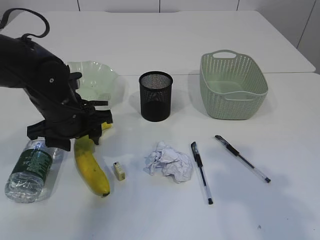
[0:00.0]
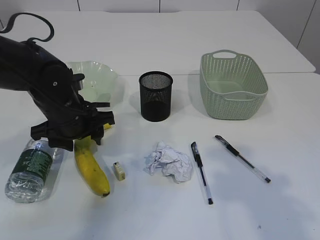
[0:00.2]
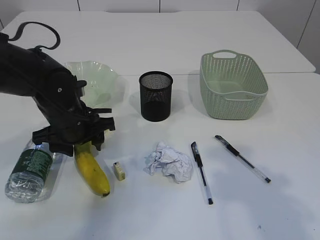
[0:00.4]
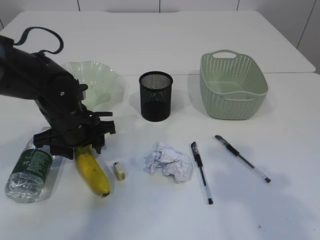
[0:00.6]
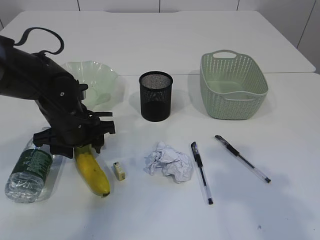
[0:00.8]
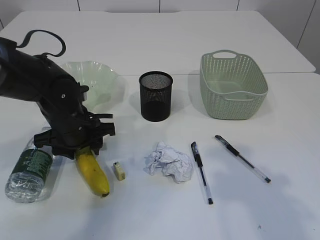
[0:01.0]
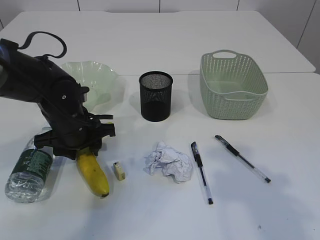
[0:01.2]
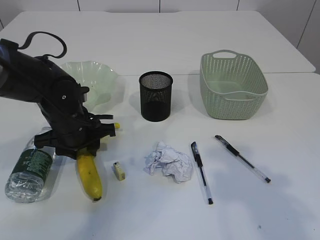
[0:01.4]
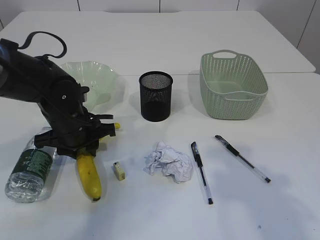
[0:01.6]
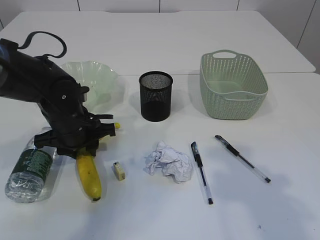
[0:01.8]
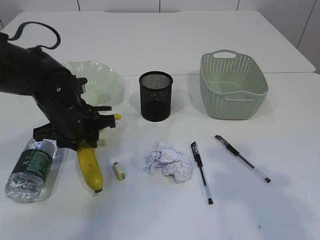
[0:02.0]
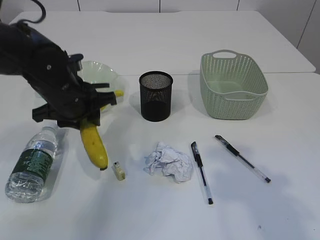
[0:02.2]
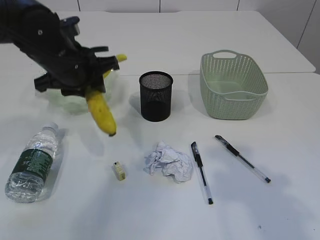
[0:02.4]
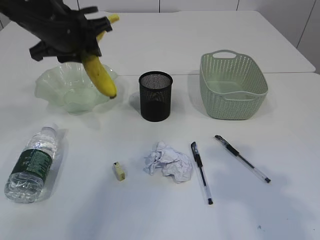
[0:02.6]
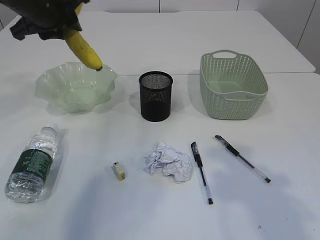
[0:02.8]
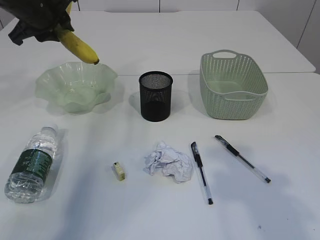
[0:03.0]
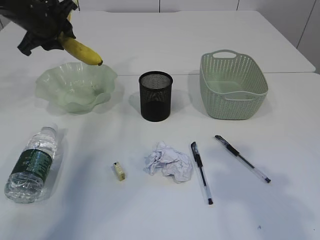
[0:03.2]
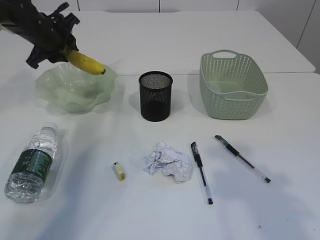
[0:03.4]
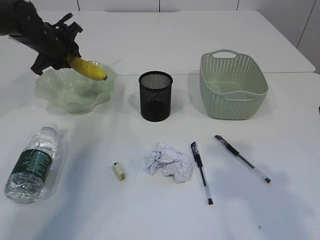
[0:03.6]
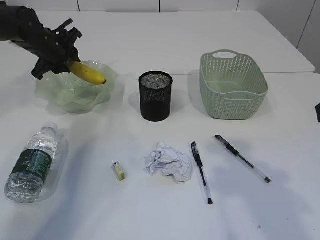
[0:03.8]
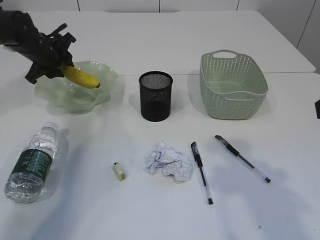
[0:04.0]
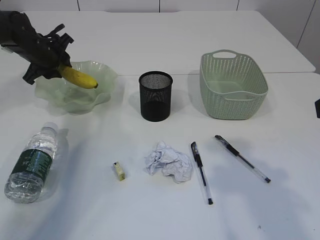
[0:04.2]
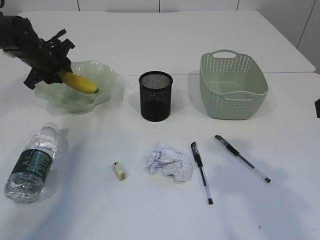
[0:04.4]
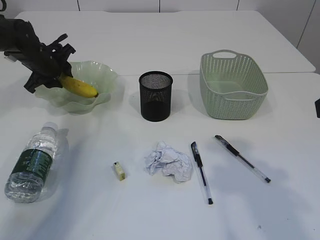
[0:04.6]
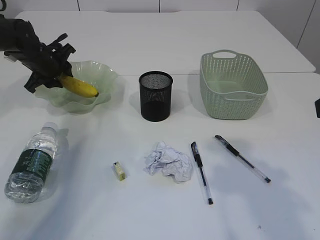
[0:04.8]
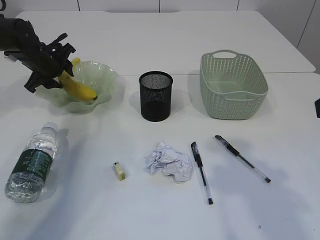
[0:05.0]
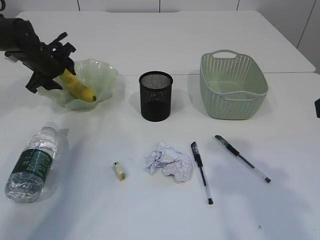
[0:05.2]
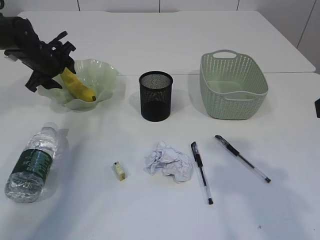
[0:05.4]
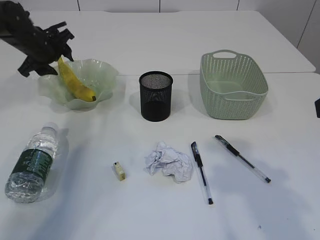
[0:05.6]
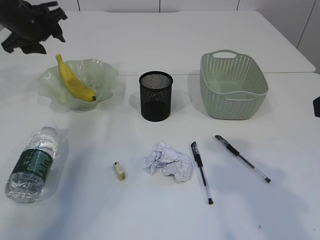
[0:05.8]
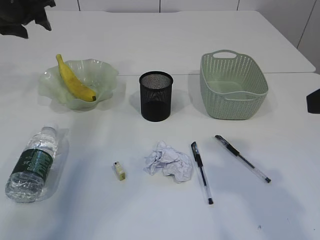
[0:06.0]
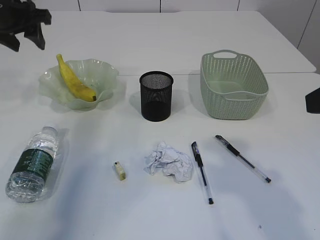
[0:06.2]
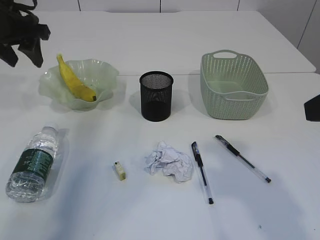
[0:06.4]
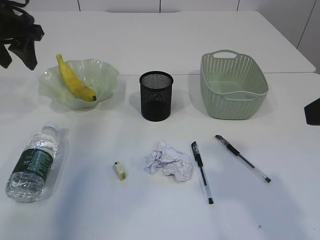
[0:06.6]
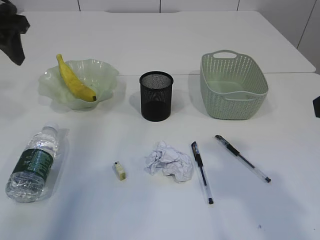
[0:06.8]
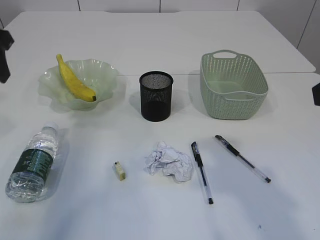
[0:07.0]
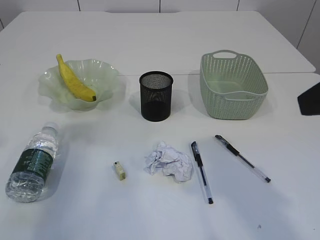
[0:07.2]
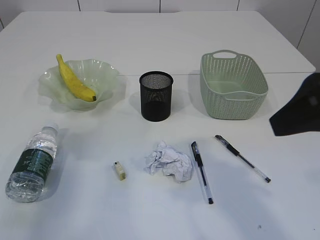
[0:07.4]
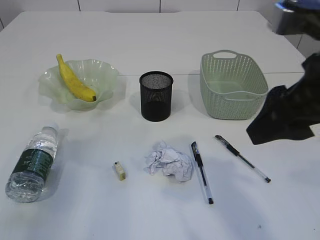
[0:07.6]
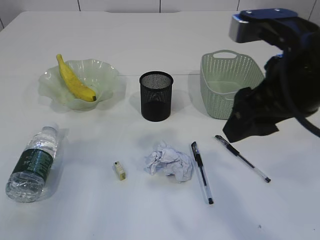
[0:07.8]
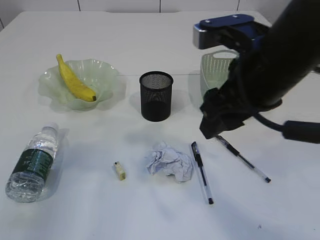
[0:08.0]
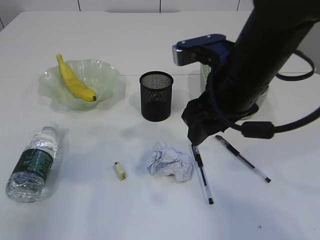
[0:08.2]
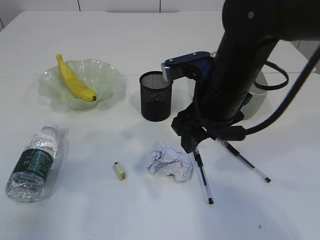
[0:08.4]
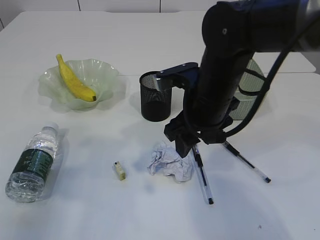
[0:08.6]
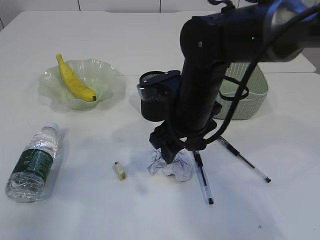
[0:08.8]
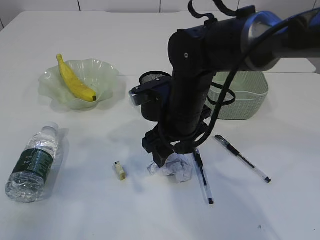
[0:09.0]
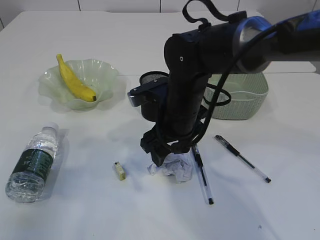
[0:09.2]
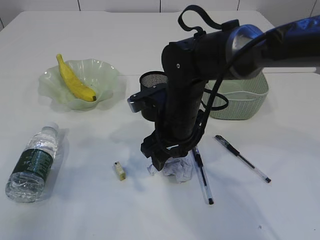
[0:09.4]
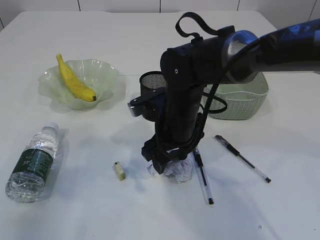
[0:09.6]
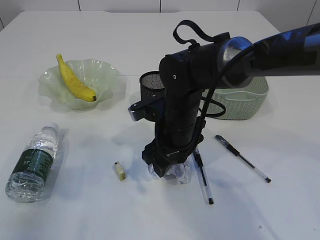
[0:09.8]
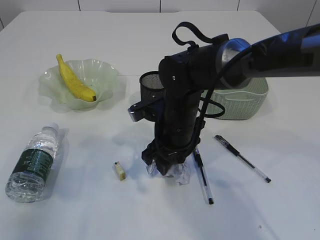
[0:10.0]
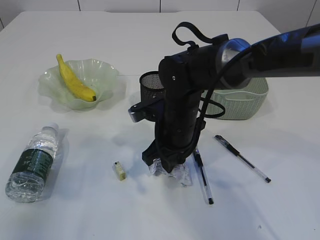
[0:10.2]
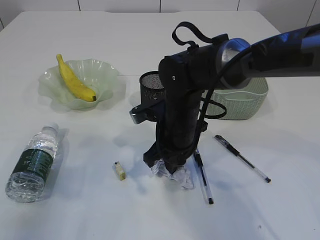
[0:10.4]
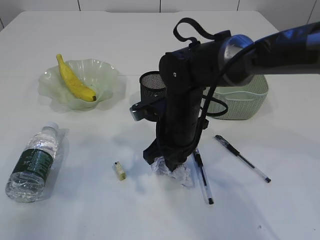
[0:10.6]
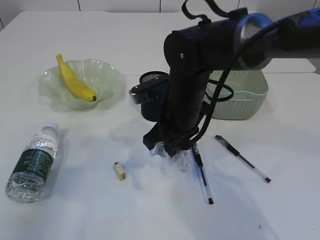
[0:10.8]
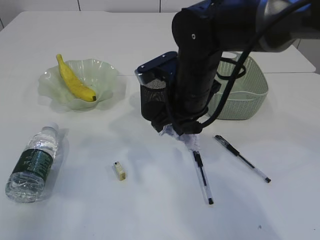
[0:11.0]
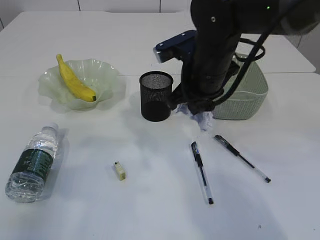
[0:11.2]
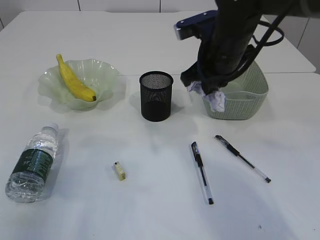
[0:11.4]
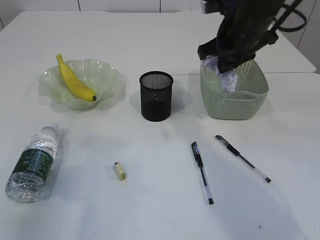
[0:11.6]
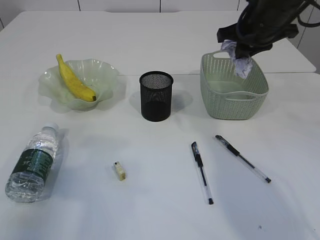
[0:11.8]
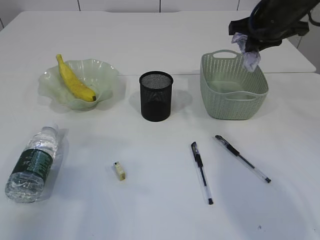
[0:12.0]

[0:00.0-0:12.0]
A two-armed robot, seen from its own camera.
Step, 0:02.4 to 0:05.6: Place the banana in the plate.
Step, 0:05.8 to 0:10.8: Pick up the waste paper.
0:00.0 to 0:01.6: The left gripper closes up.
0:01.6 to 0:03.0: The left gripper travels upward, forward and to the left by roughly 20 cm.
0:03.0 to 0:04.4: The left gripper is displaced downward and forward by some 15 cm.
0:04.4 to 0:06.0: The left gripper travels upward by roughly 15 cm, and opens up.
0:06.0 to 0:07.6: The left gripper is displaced backward by approximately 20 cm. The right gripper heads to the left, covering roughly 5 cm.
0:07.6 to 0:09.0: The right gripper goes approximately 25 cm downward, forward and to the left, while the left gripper shifts approximately 10 cm backward.
0:09.0 to 0:10.4: The right gripper closes up.
0:10.4 to 0:12.0: The right gripper is displaced to the right, upward and forward by approximately 25 cm.

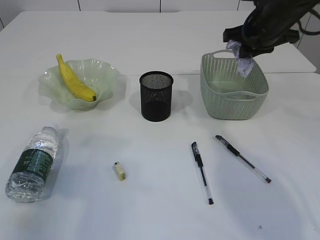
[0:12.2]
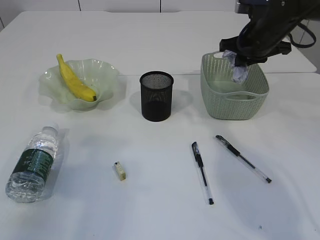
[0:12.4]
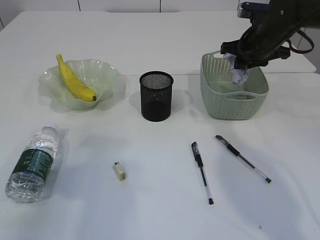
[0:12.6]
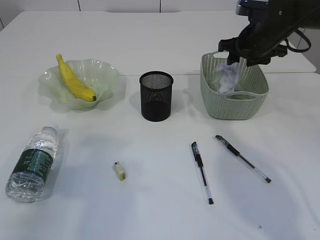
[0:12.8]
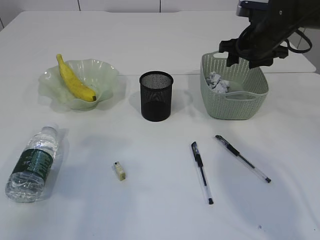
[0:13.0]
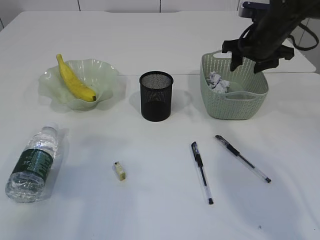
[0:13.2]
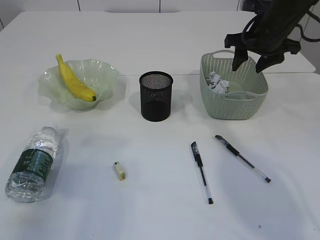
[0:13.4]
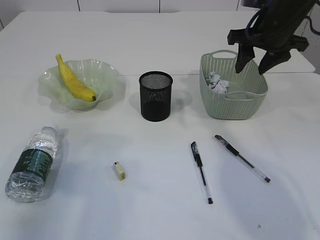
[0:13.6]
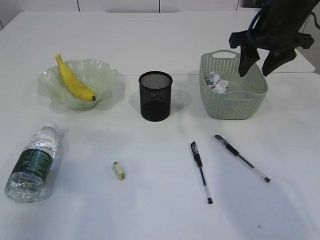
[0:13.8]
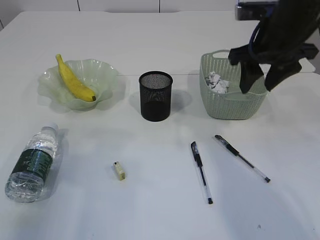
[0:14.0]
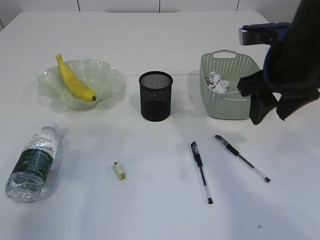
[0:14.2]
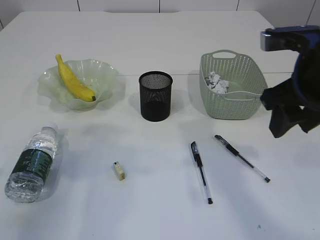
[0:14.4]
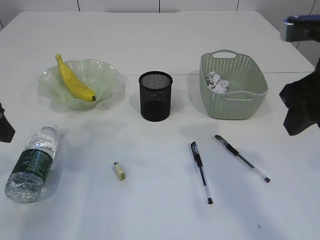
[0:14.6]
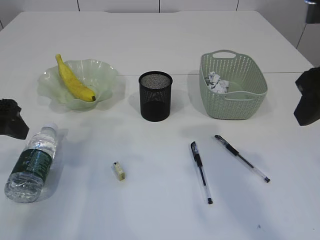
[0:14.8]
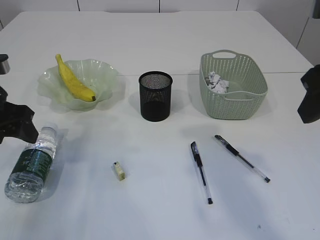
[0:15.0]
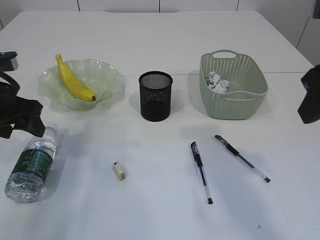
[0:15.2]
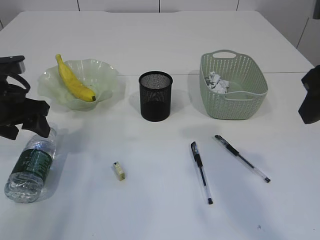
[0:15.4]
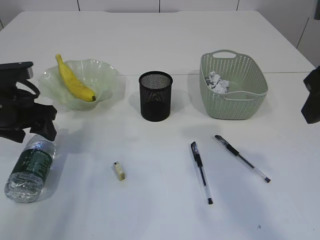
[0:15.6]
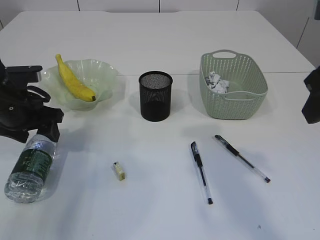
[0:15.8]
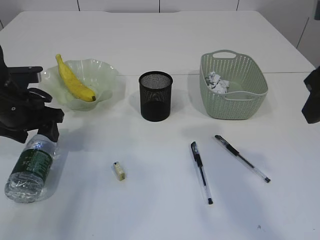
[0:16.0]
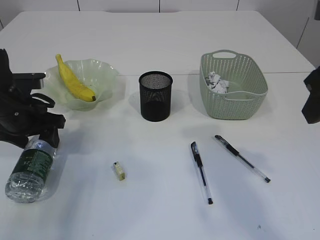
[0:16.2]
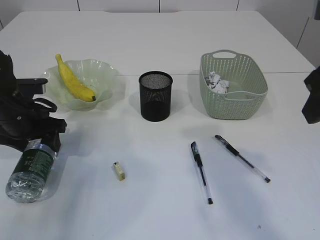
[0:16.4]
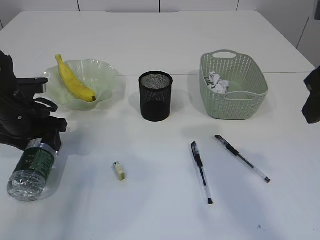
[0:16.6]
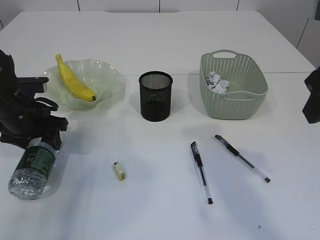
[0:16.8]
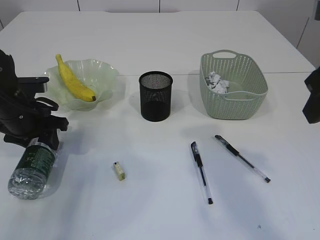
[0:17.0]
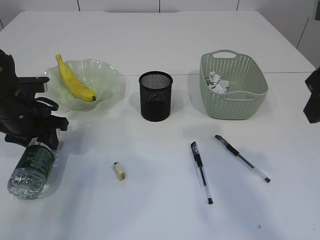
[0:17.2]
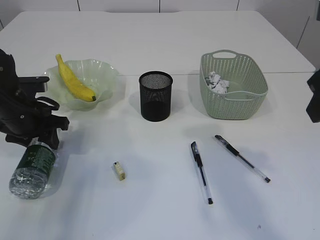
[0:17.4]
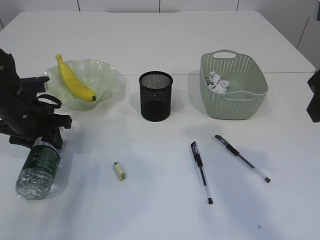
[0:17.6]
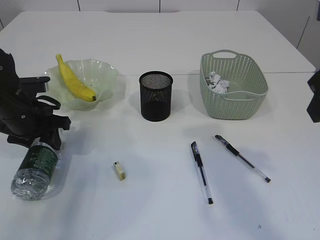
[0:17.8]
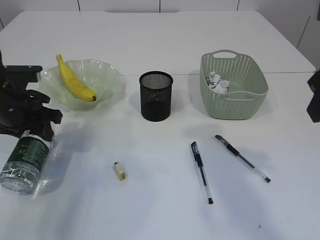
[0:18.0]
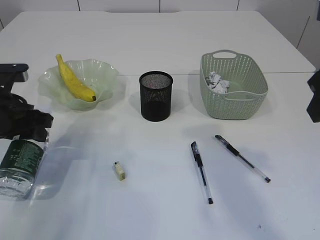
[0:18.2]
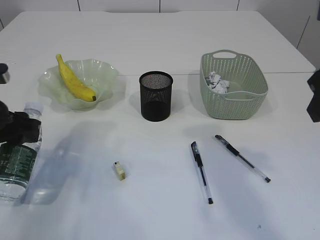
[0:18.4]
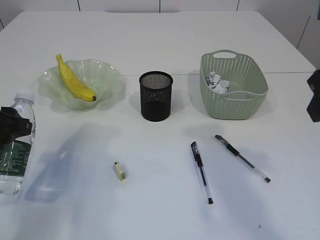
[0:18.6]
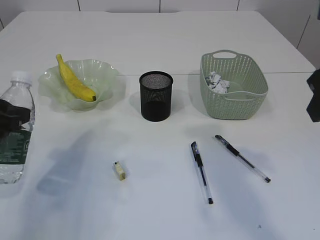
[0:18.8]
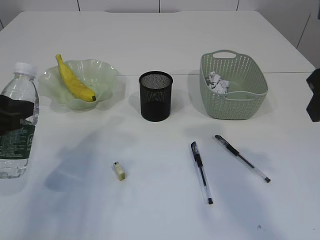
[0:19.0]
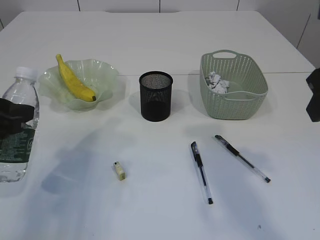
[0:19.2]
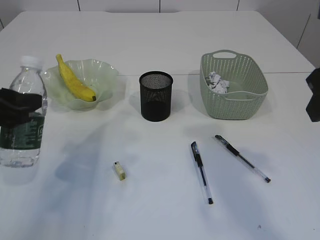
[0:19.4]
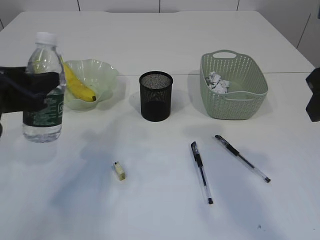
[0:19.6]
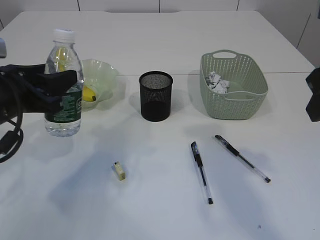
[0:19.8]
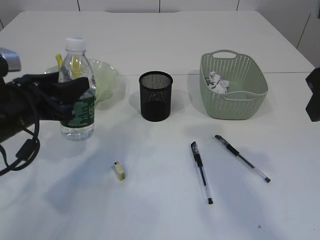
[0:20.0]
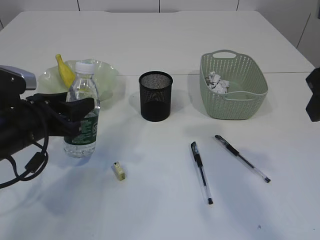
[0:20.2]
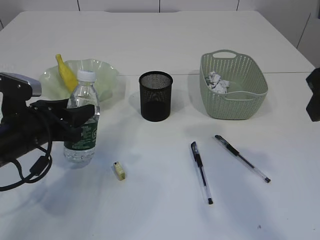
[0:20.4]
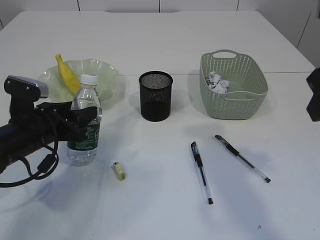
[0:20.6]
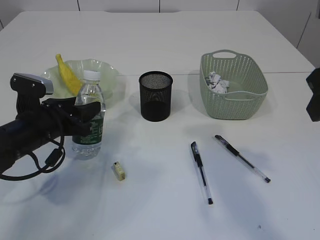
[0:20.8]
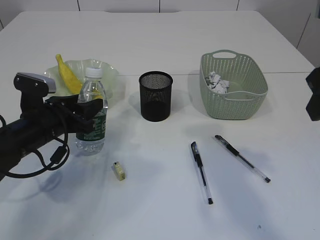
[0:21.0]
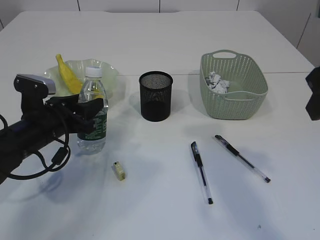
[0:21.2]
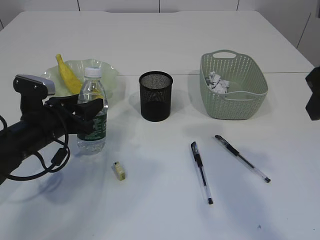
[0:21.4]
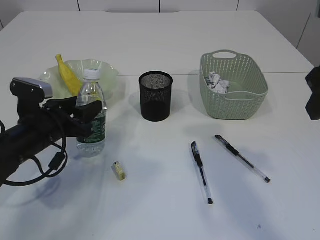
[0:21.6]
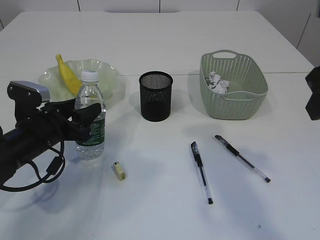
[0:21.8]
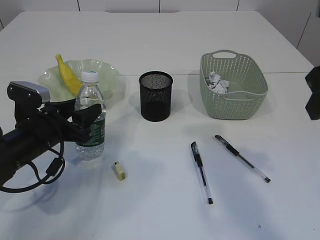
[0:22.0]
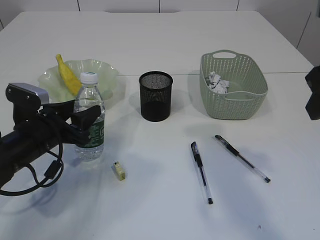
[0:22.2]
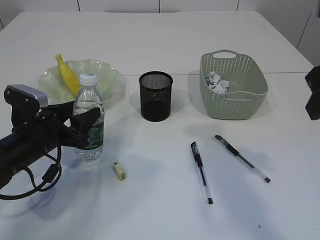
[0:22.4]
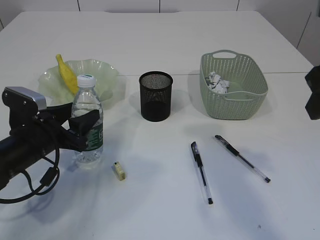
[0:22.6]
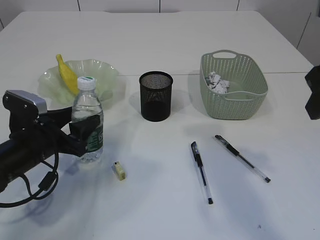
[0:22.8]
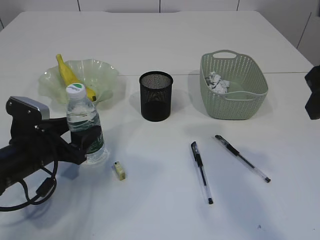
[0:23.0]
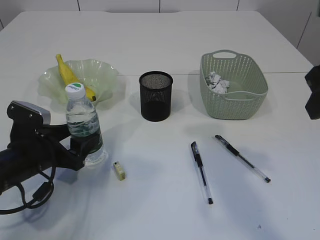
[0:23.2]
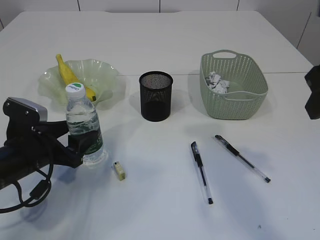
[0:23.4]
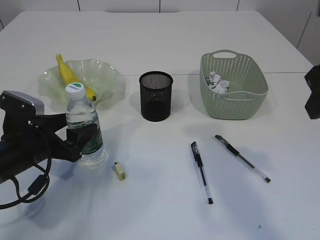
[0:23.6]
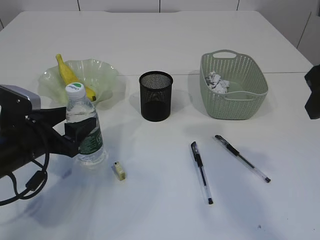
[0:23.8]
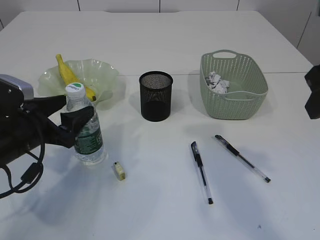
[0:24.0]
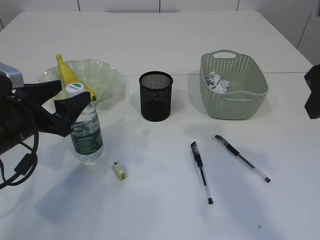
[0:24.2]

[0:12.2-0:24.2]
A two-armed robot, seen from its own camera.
Step, 0:13.6 to 0:18.2: Pick up the bottle with the left arm.
0:12.2 to 0:13.8: The right gripper opens.
0:13.8 to 0:15.2: The left gripper travels forward and downward by approximately 15 cm, and opens; the right gripper heads backward, covering approximately 20 cm.
0:15.2 to 0:16.6: The left gripper goes roughly 5 cm downward.
0:16.6 to 0:18.2: The left gripper ends up roughly 5 cm from where it was, and closes.
0:19.8 to 0:21.2: The left gripper travels downward and forward by roughly 10 cm.
0:21.2 to 0:22.6: The grippers move only a little.
0:22.6 to 0:24.2: The left gripper travels upward by approximately 5 cm, and opens its fingers.
